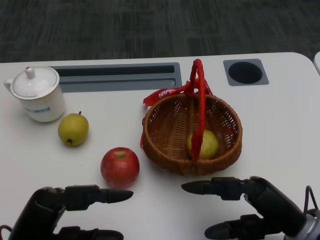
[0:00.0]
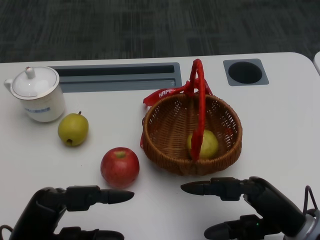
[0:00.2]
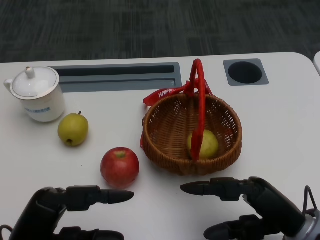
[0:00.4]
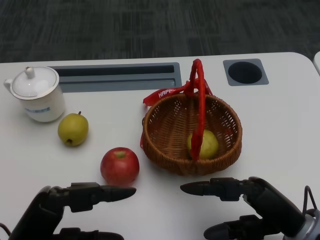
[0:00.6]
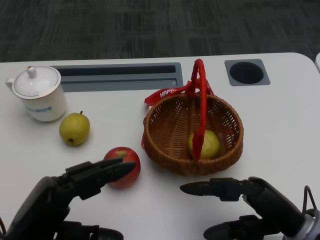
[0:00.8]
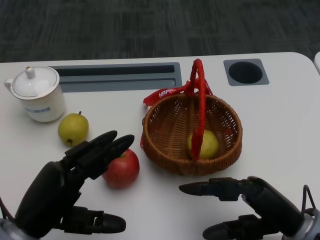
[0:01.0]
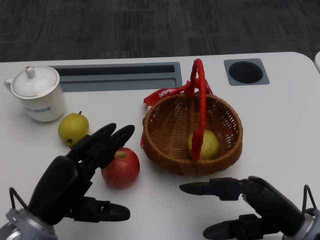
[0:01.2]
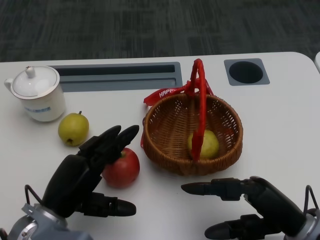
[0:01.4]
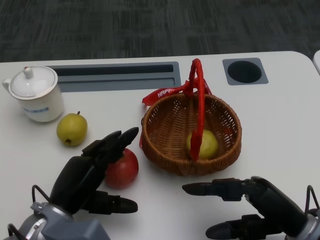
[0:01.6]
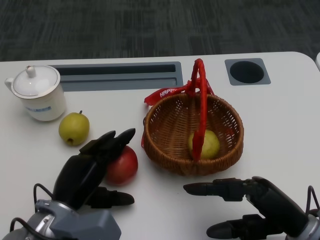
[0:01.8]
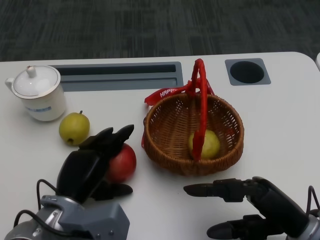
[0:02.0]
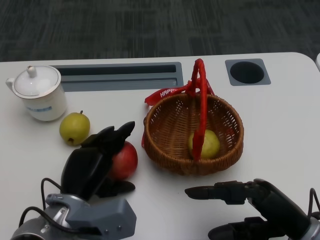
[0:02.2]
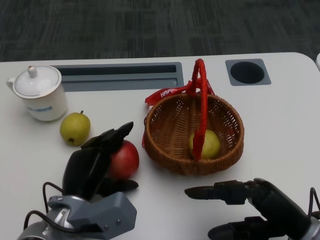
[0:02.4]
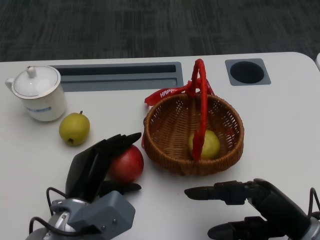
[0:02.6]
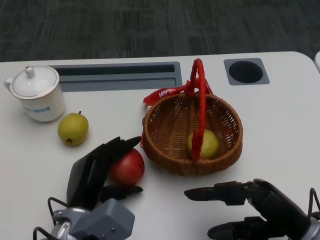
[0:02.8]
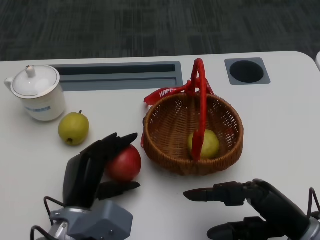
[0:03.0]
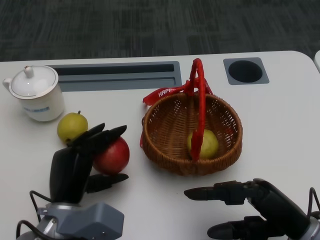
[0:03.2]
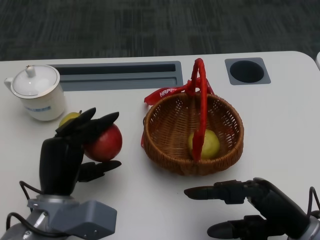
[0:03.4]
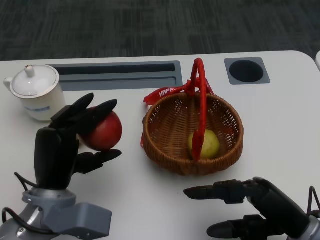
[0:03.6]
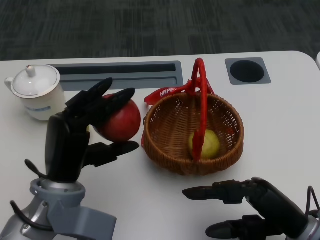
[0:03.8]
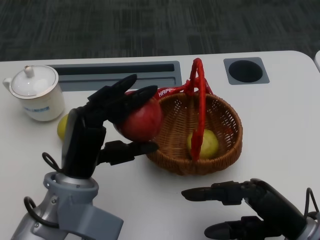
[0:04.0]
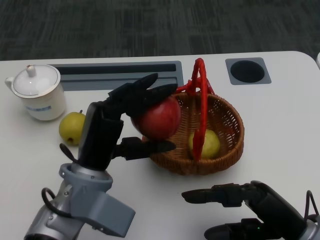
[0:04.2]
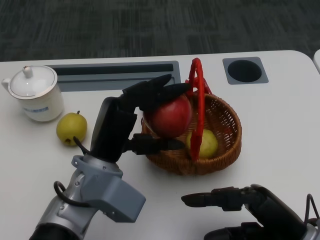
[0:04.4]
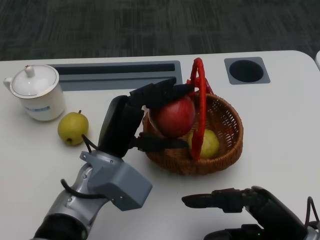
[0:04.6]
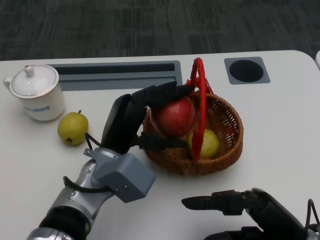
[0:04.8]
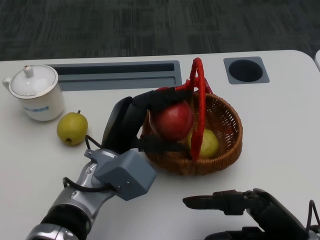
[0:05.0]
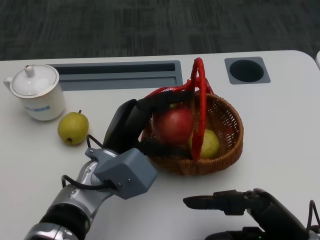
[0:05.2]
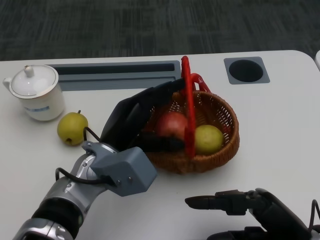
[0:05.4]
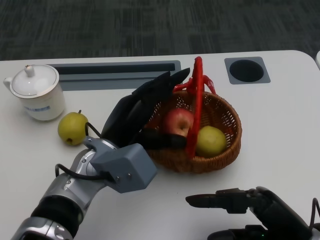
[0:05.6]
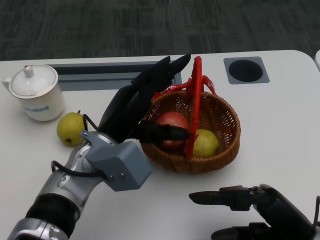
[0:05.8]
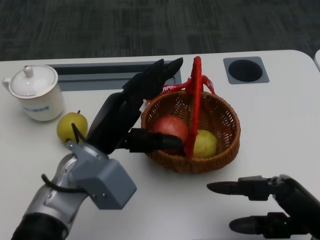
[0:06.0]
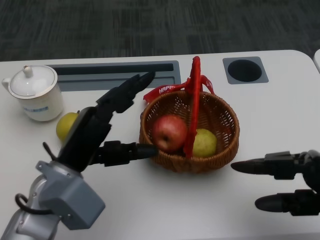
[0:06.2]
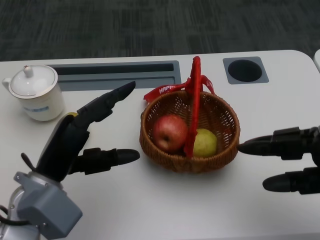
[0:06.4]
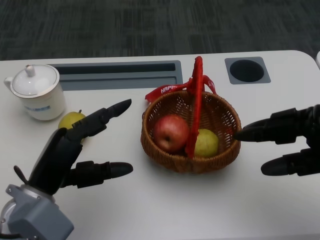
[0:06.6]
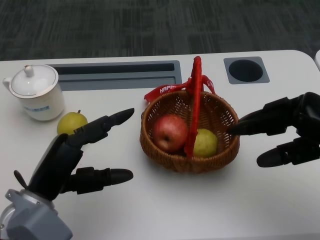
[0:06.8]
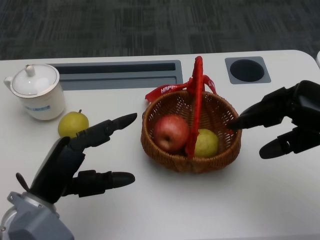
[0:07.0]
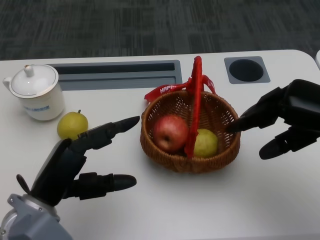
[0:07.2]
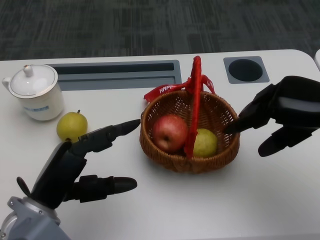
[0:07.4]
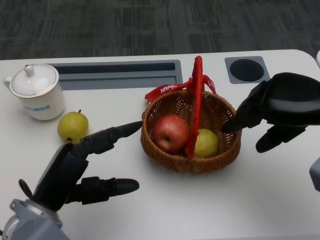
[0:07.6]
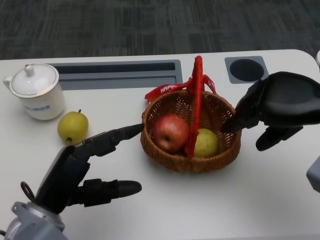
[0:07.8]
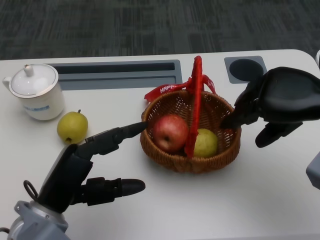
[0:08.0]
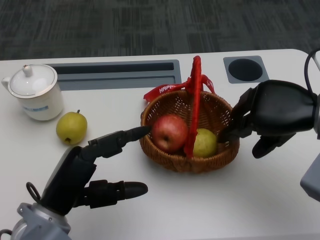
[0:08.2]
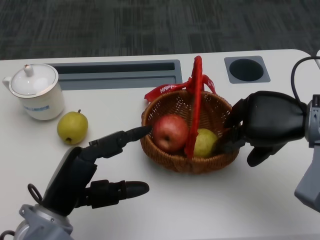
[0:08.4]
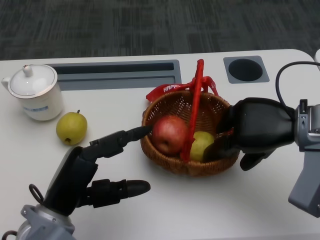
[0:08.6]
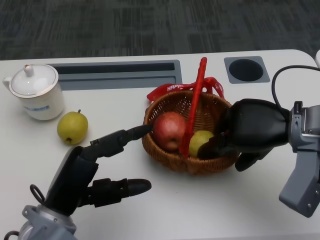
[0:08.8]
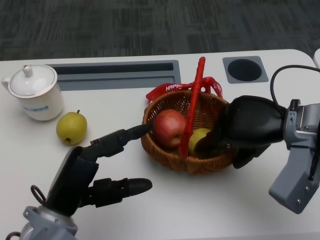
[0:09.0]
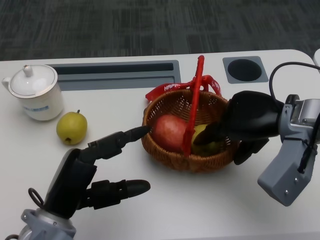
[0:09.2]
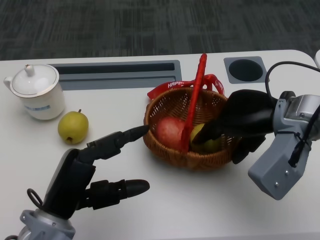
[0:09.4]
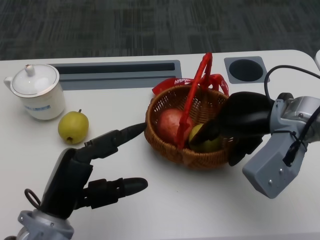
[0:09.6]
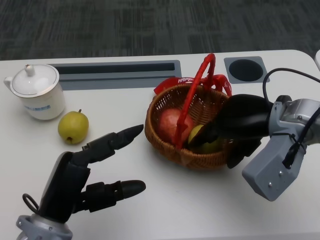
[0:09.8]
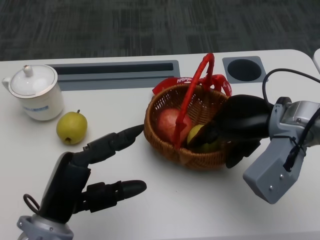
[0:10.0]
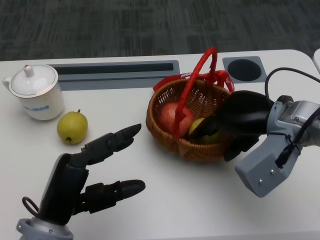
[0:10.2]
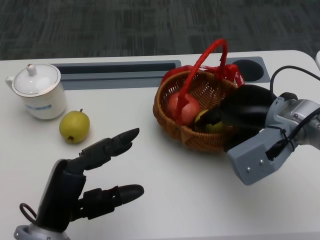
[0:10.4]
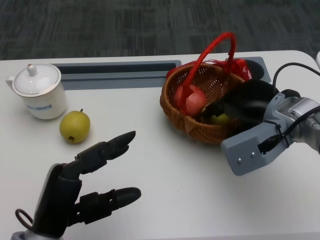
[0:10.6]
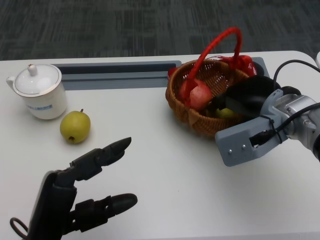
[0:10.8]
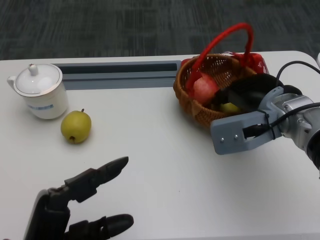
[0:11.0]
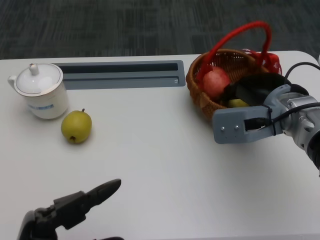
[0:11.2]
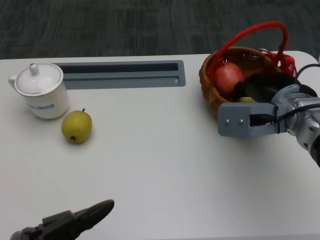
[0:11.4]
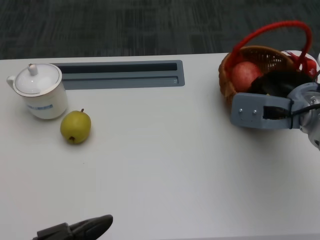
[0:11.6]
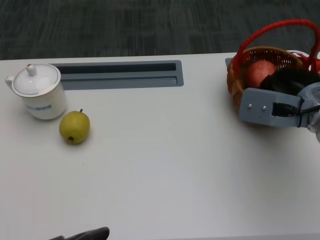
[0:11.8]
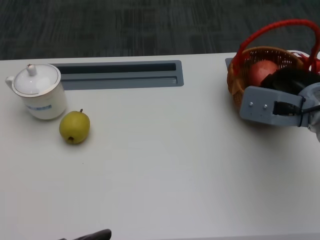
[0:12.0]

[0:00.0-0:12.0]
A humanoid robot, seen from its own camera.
Step, 0:00.4 to 0:02.2: Grasp the apple with the left gripper.
Step, 0:02.4 to 0:04.4: Place the apple into the basket with the left gripper.
Step, 0:04.6 to 0:08.0: Grasp the basket with the right gripper.
Step, 0:08.2 to 0:10.0: Move the basket to the front of the table with the right gripper.
0:03.0 to 0:04.4: The left hand heads upward, covering approximately 10 cm.
0:06.0 to 0:07.6: The left hand moves to the left and backward, about 10 cm. The right hand moves forward and upward, roughly 20 cm.
0:07.6 to 0:09.0: The right hand shifts by roughly 5 cm.
0:10.4 to 0:12.0: The left hand goes approximately 15 cm backward.

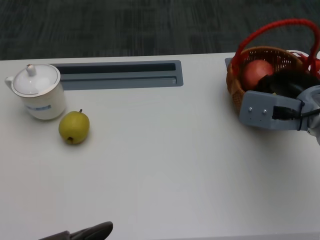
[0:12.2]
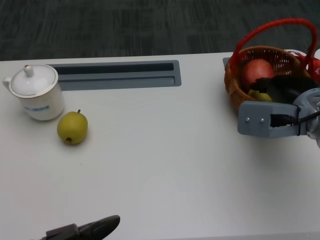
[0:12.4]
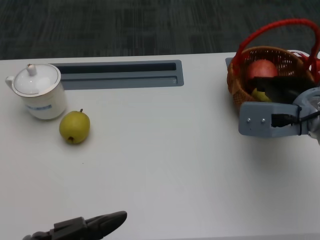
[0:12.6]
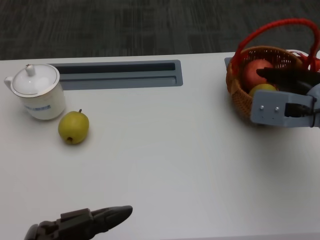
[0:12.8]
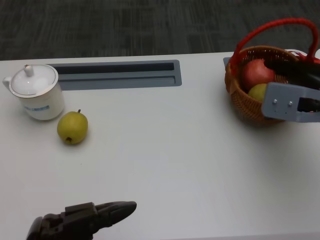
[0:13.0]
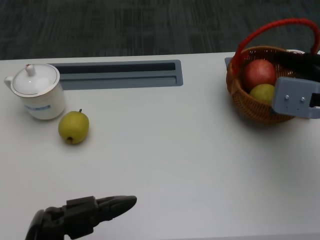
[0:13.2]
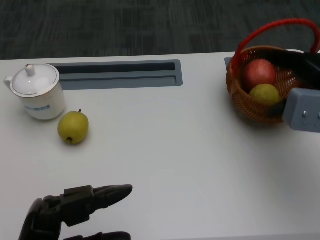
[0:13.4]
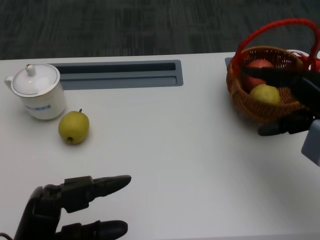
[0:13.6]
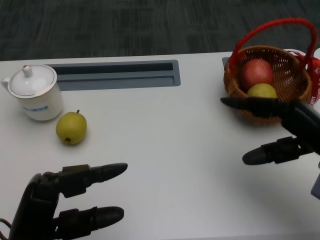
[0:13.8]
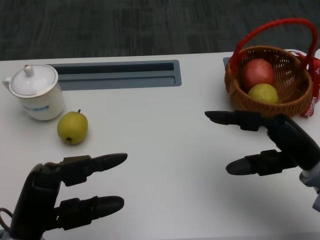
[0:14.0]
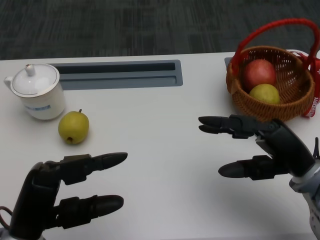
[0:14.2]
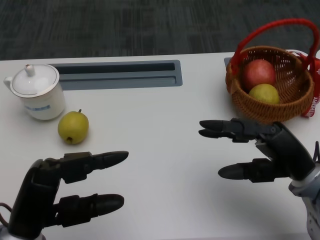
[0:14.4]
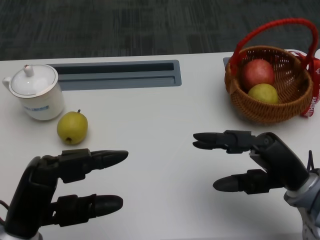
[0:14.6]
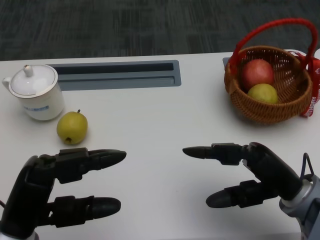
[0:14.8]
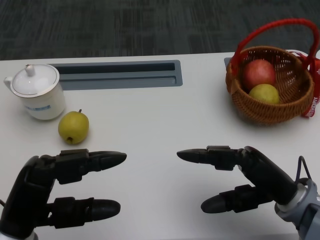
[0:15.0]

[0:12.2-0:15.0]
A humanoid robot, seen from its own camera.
0:12.2 to 0:13.6: The left hand goes some 10 cm forward, while the right hand moves some 5 cm.
0:13.6 to 0:15.0: The right hand shifts approximately 15 cm backward, downward and to the left.
